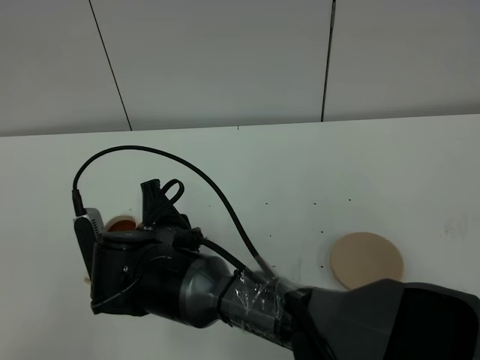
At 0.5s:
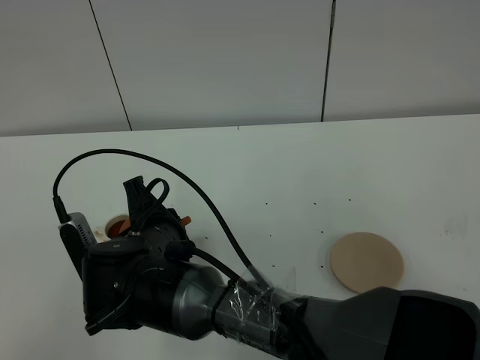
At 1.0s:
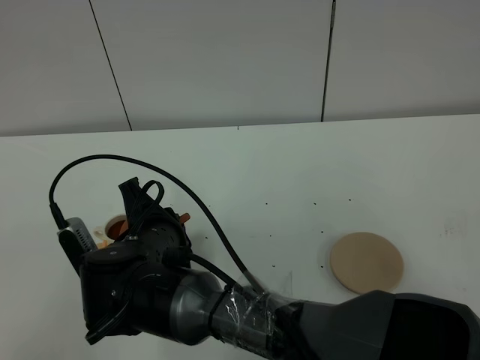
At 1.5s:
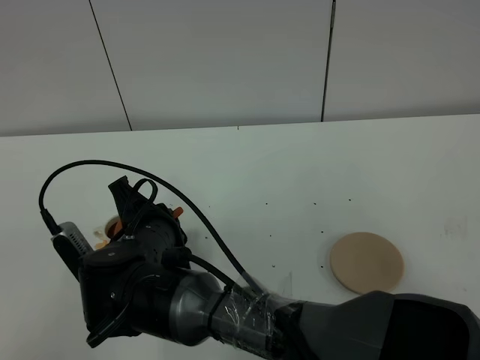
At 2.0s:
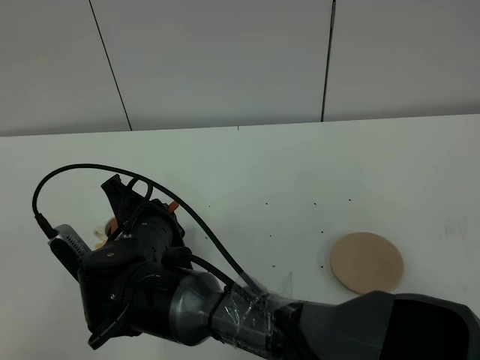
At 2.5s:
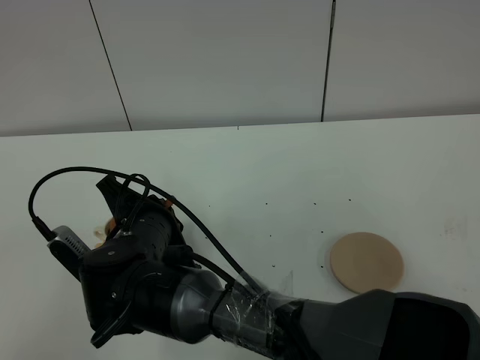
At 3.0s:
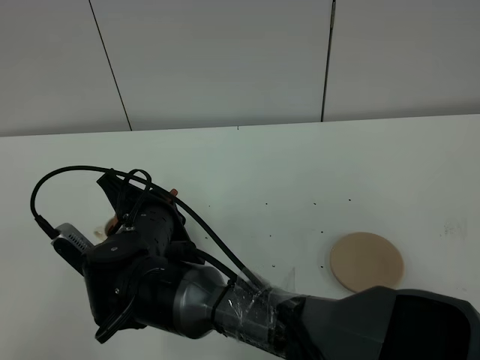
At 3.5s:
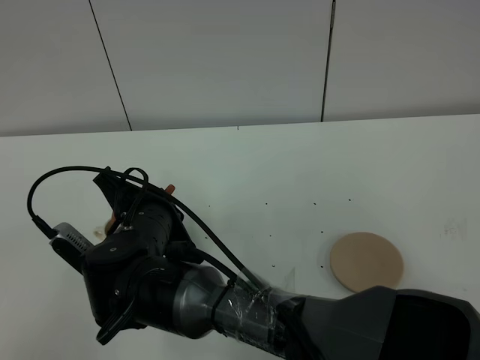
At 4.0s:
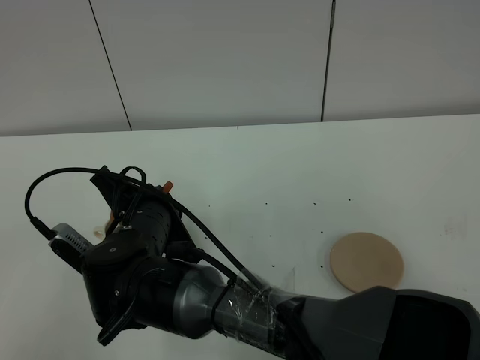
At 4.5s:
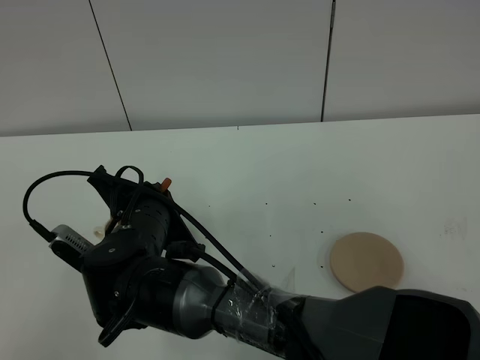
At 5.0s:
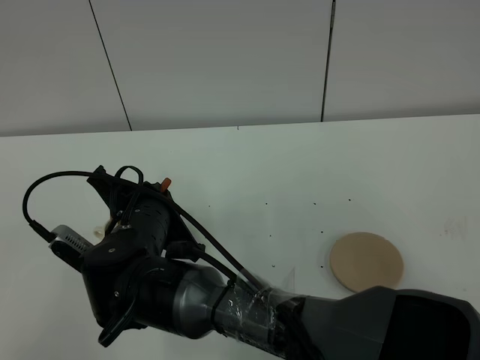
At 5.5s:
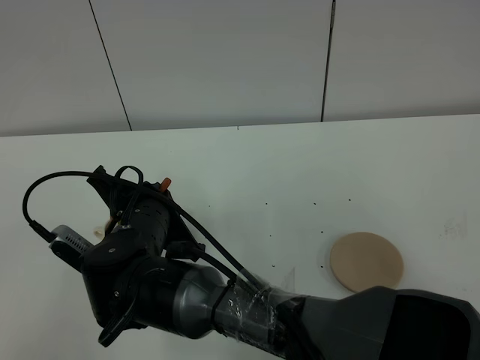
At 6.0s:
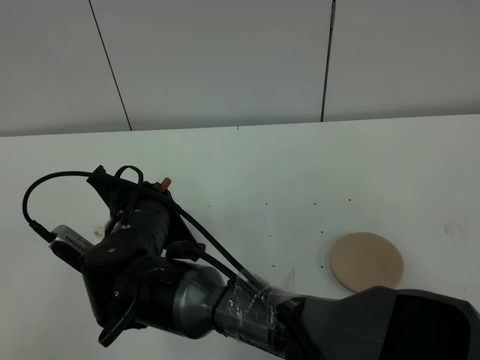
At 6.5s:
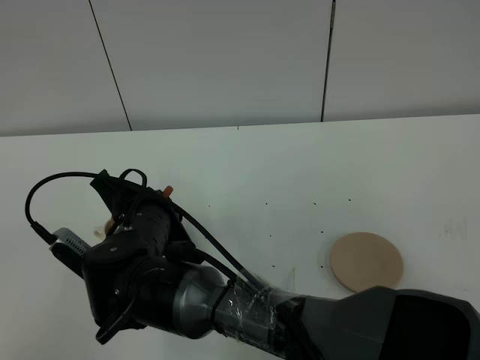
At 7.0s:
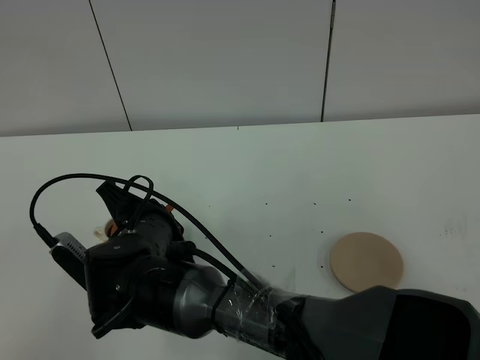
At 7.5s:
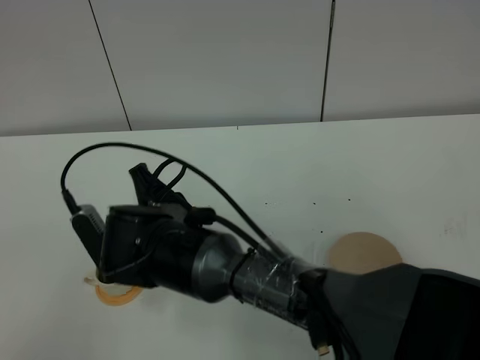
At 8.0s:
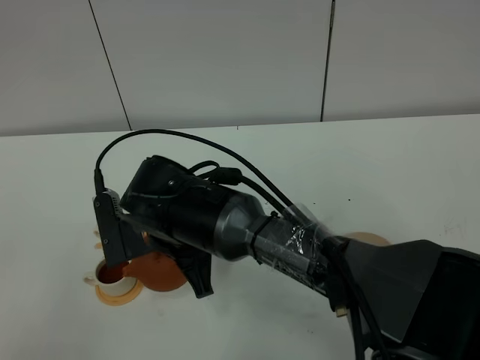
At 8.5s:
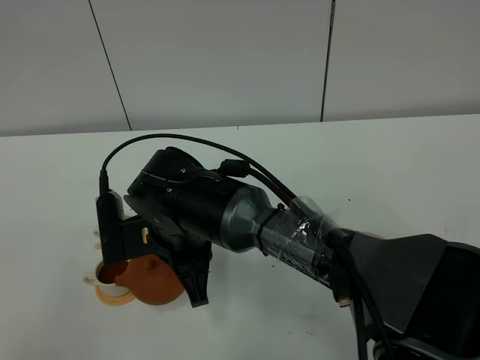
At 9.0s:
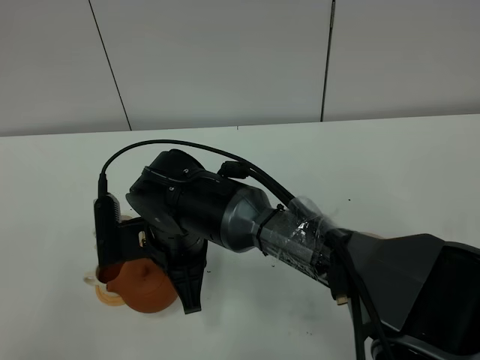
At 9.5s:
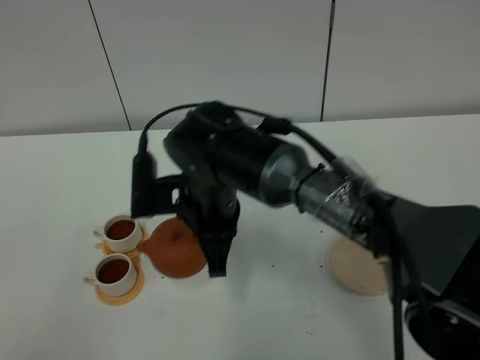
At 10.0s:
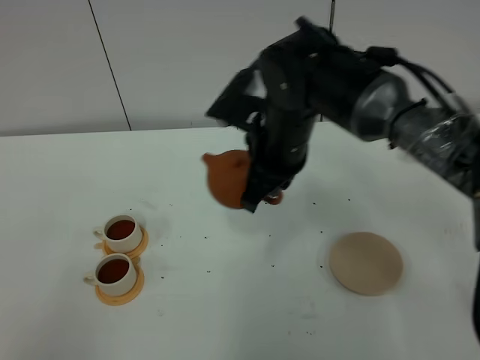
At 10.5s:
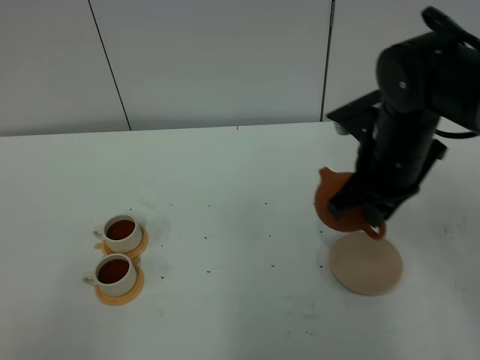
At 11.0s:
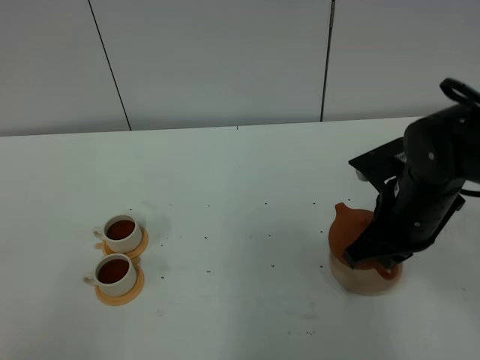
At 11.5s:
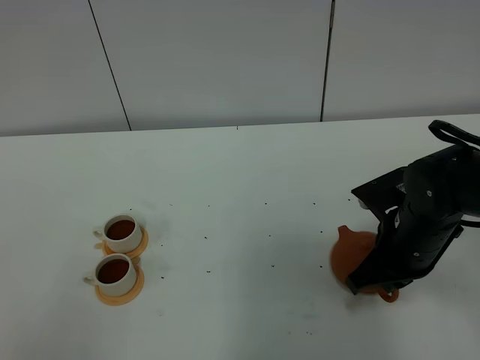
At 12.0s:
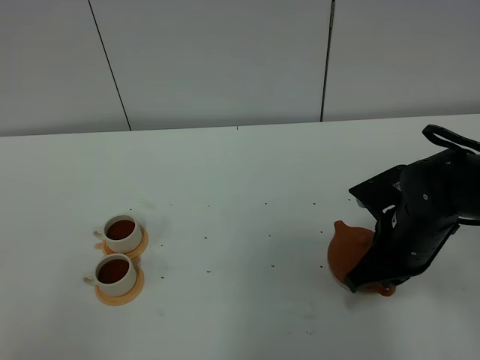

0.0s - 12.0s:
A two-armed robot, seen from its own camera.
Task of the whole recording: grasp the brown teapot and pour the tea into the two white teacups one by one, put the brown teapot back in its original place.
Step, 0.0s - 8.5s: Pour tea into the teacup with the right gripper.
2.0s - 4.0s: There are only small adjustments of the grippers.
4.0s - 6.0s: The two grippers keep their place.
8.0s - 10.0s: The right gripper is displaced to the right, forward and upward by some 15 cm.
10.0s - 12.0s: The right gripper is displaced to the right, downward and backward by approximately 20 cm.

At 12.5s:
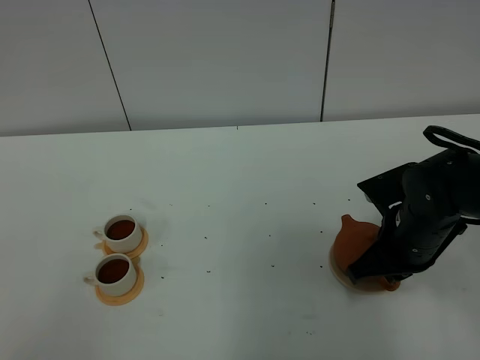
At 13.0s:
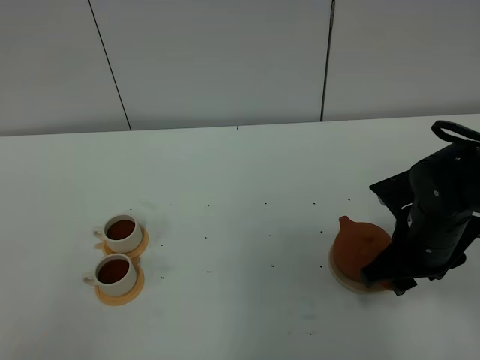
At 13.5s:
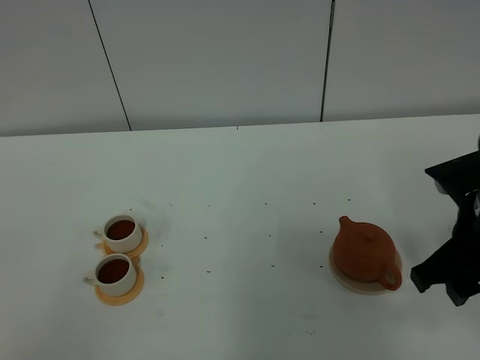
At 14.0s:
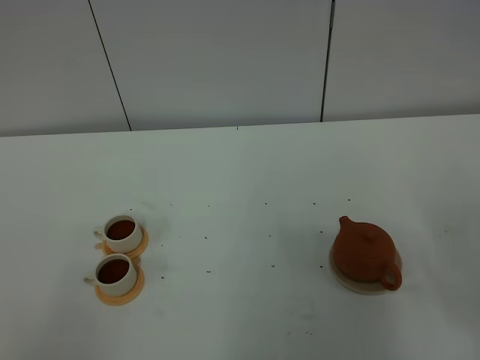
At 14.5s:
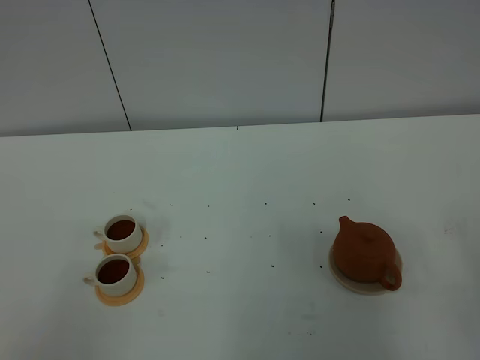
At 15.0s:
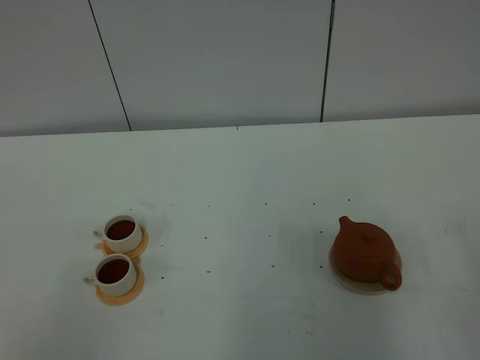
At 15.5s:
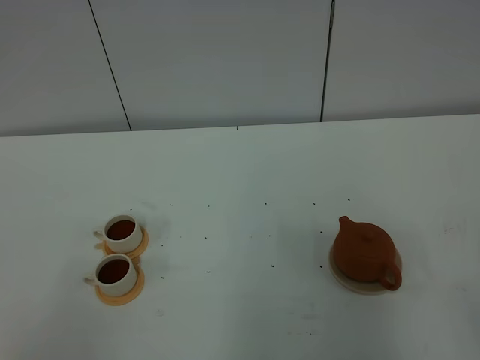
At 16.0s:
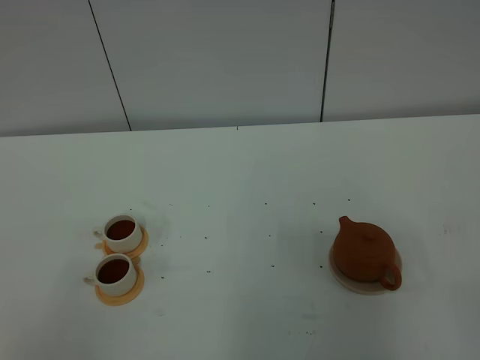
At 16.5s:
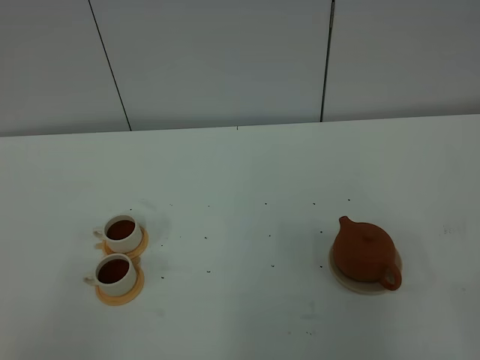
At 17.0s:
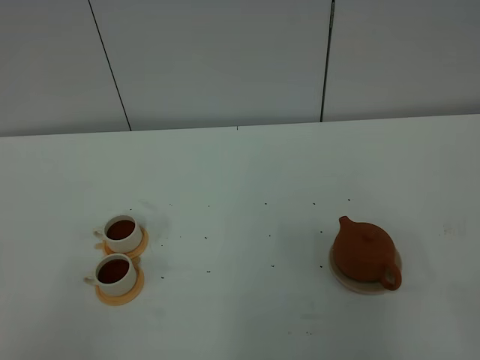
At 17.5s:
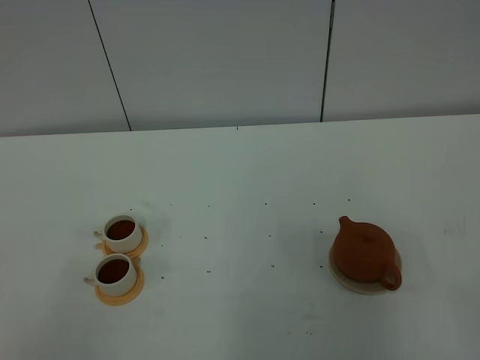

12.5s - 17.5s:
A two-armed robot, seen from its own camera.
Task of the whole recording: grasp the brown teapot and pour the tea into the two white teacups one by one, put the brown teapot back in its original place.
12.5s - 15.0s: The right gripper moves backward, upward and to the right, roughly 30 cm, and opens up.

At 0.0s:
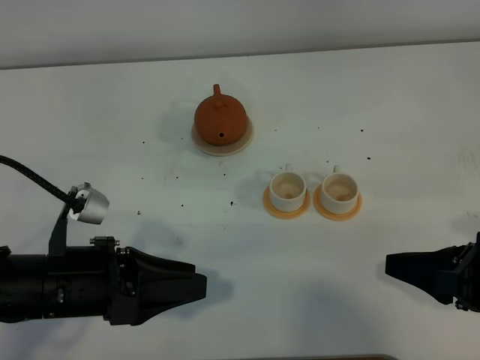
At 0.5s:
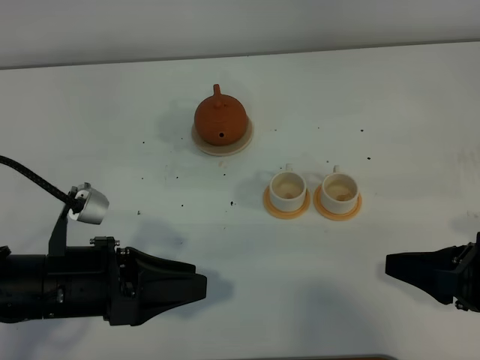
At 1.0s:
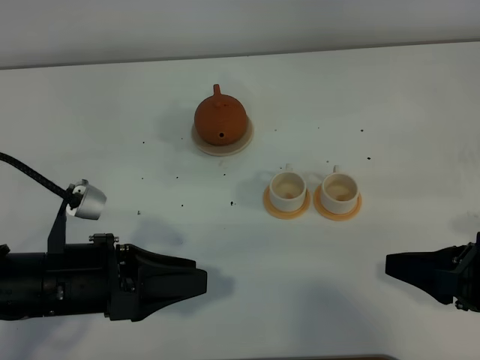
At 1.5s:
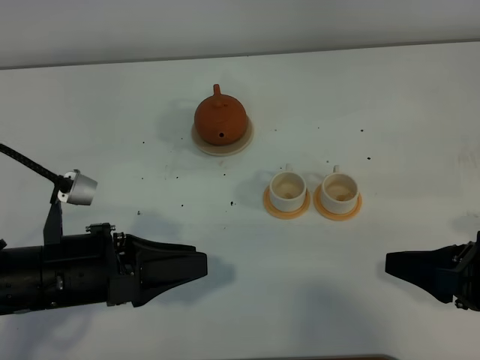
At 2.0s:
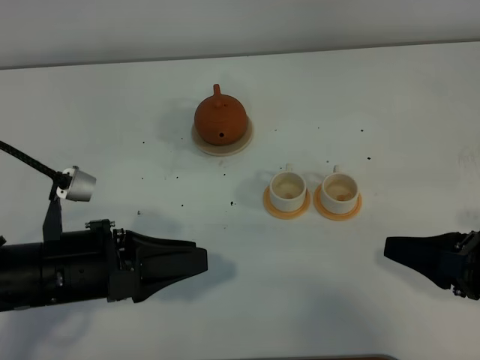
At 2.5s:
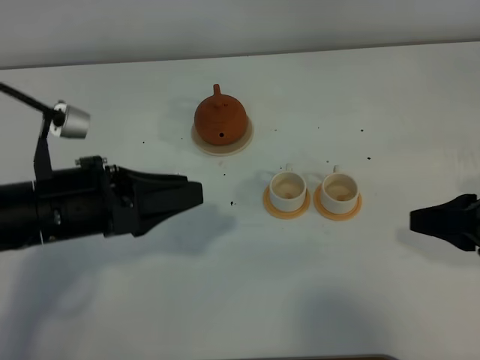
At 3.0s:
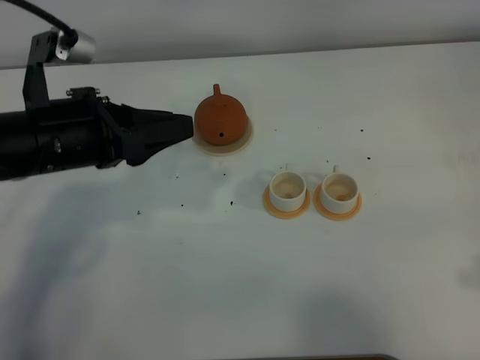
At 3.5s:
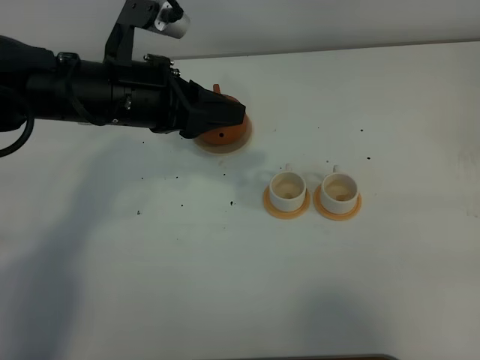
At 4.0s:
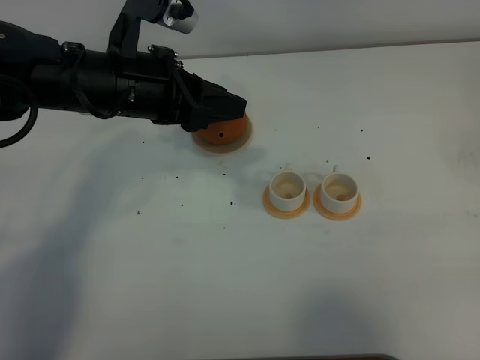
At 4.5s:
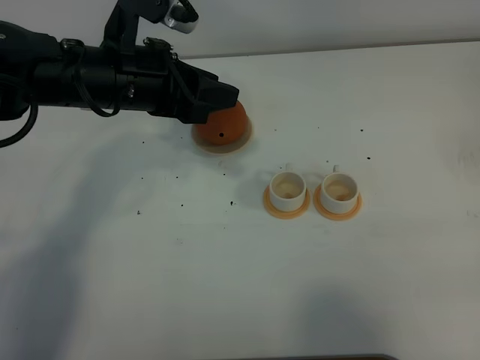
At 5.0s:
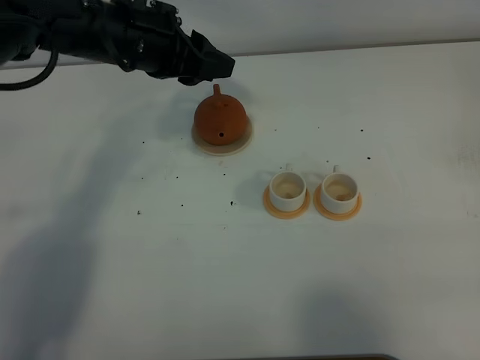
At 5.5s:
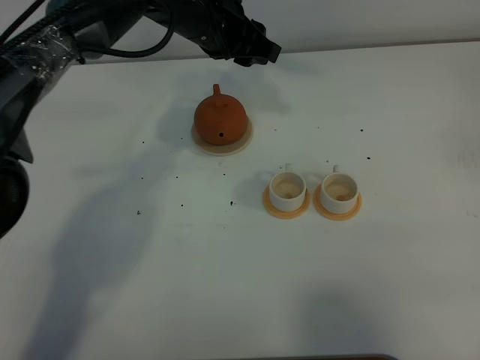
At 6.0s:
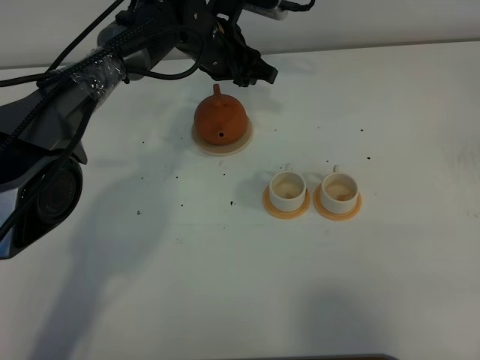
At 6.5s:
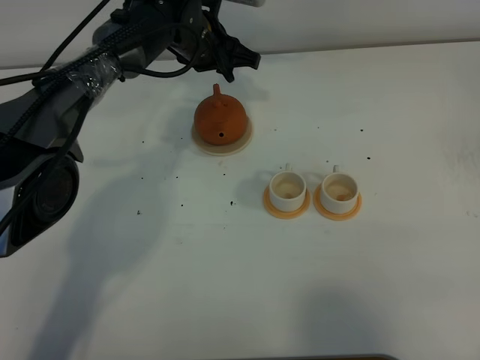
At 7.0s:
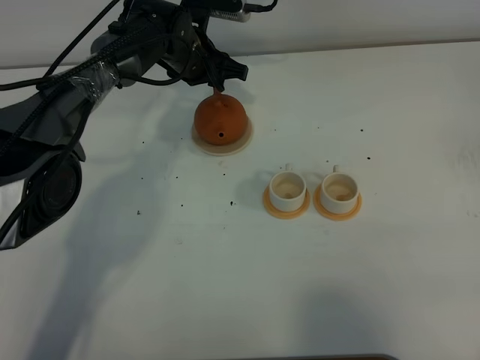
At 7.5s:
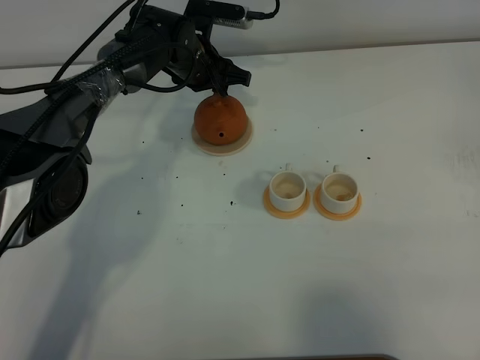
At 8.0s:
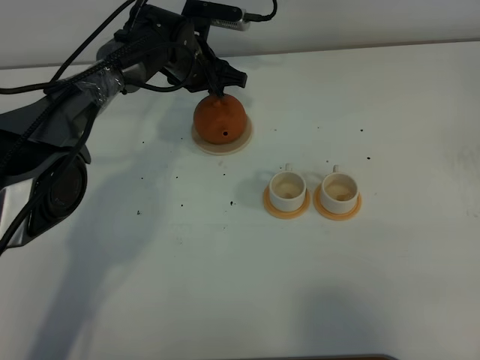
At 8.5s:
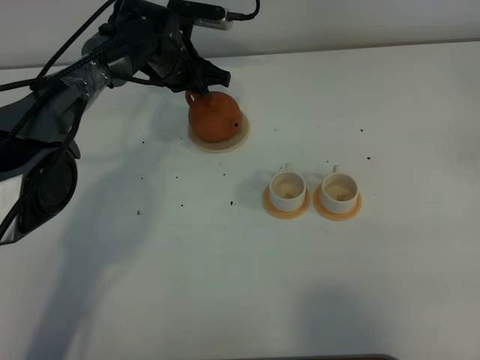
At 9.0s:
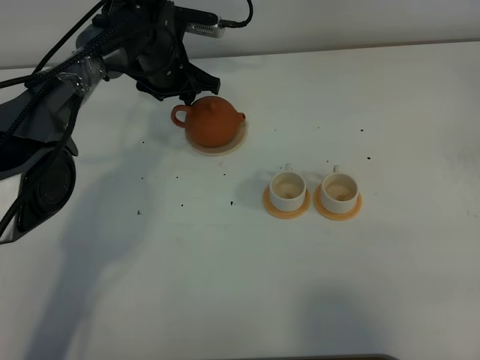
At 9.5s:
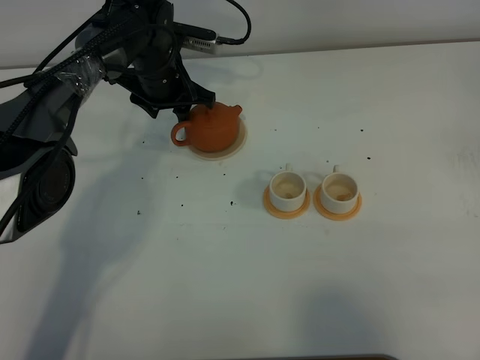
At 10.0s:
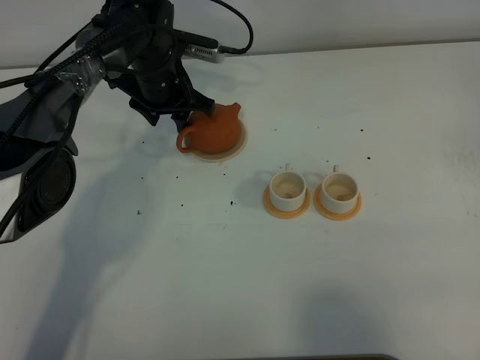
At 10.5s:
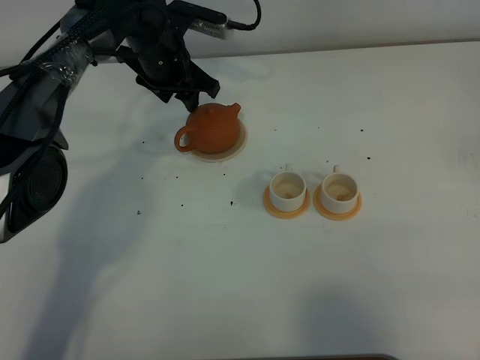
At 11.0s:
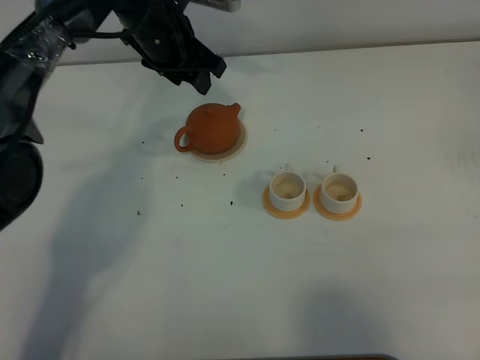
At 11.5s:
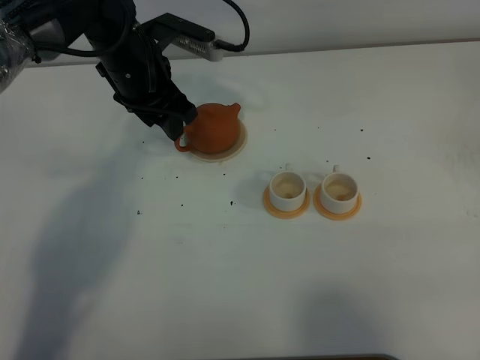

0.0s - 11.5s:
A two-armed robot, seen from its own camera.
Task of the whole recording: grasp the brown teapot and pour the tea into the two white teacups one by one, put the brown teapot back in its original place.
0.0s - 2.0s: The grippers stay close to where they were, moving slightly.
2.0s - 4.0s: The right gripper moves backward, upward and to the right, about 20 cm, while the left gripper heads forward and upward, covering some 20 cm.
4.0s - 6.0s: The left gripper moves forward, to the right and downward, some 20 cm.
6.0s - 7.5s: The left gripper changes place by some 5 cm.
9.5s - 11.5s: The left gripper moves upward and backward, about 10 cm.
